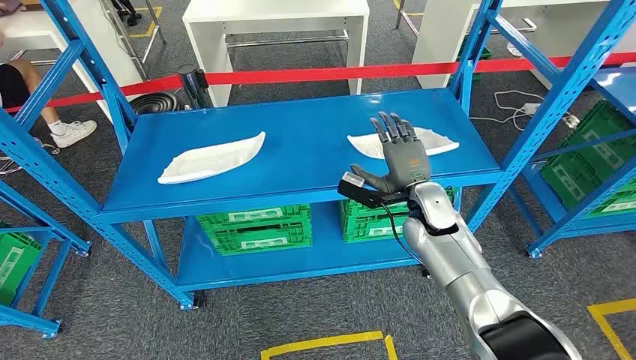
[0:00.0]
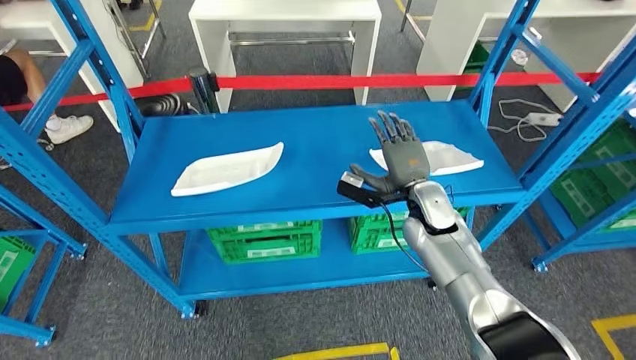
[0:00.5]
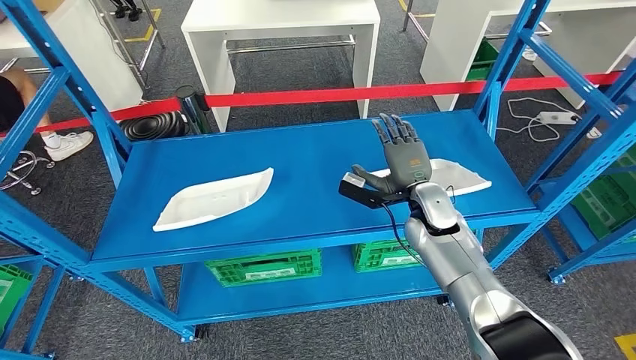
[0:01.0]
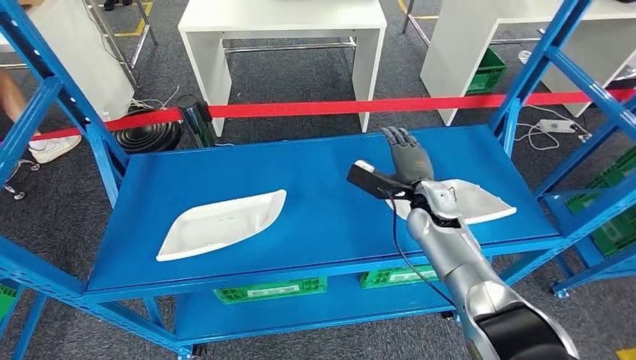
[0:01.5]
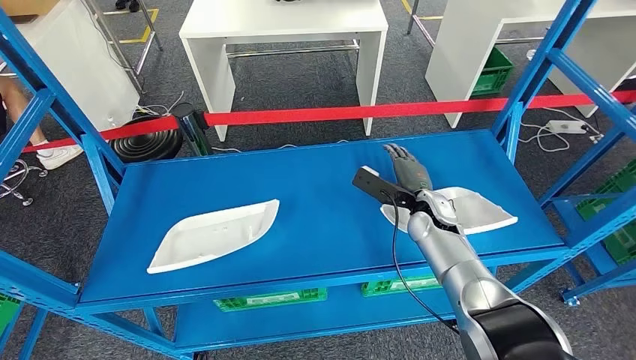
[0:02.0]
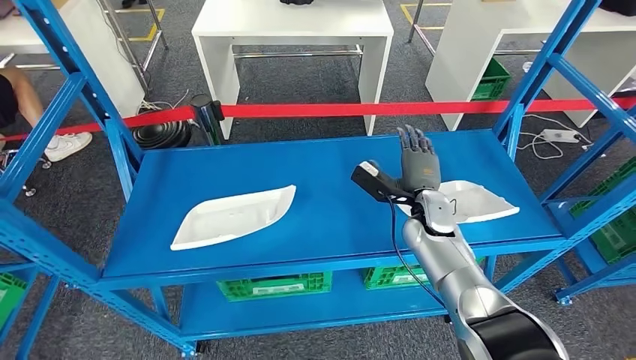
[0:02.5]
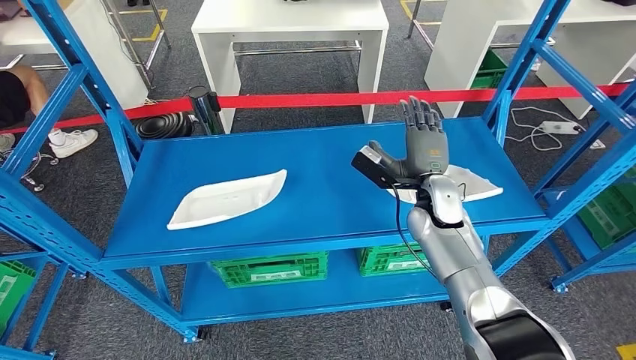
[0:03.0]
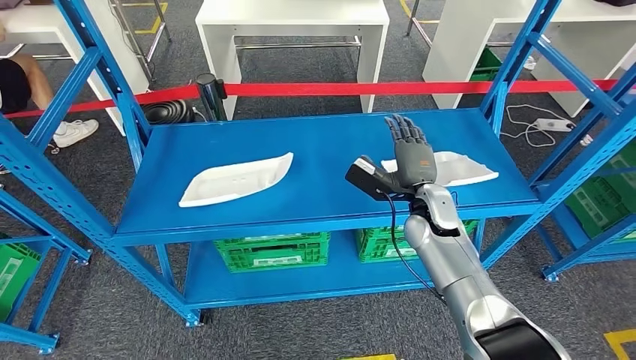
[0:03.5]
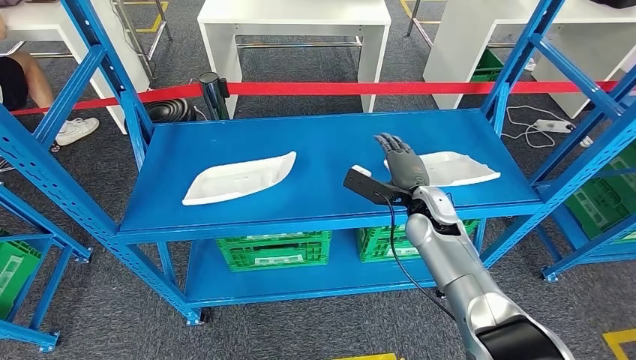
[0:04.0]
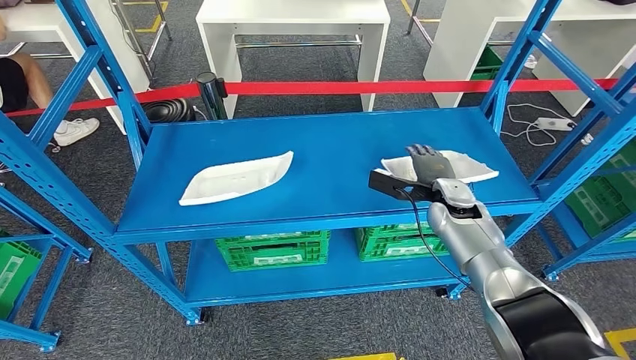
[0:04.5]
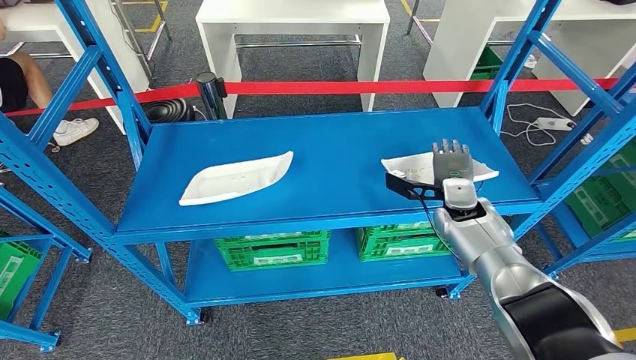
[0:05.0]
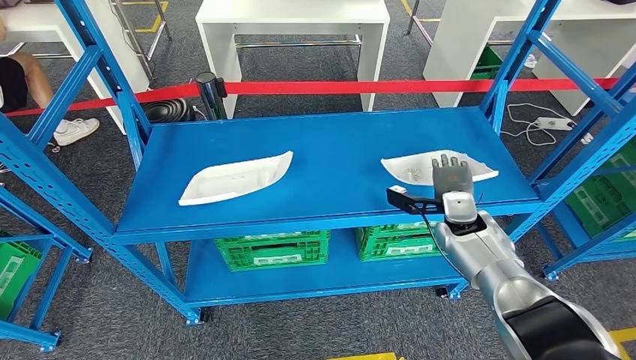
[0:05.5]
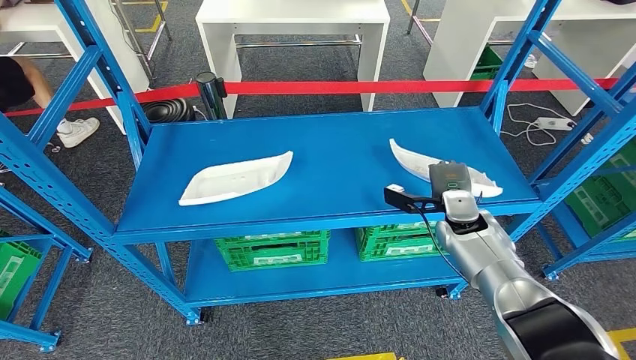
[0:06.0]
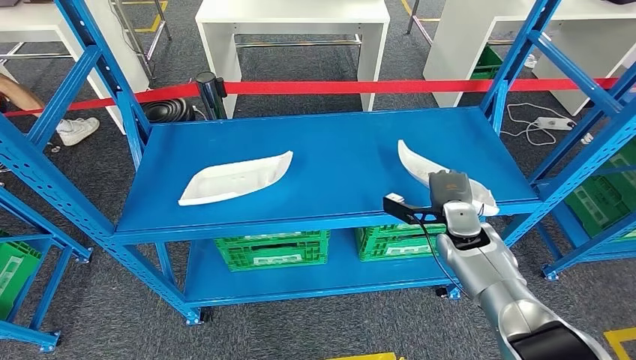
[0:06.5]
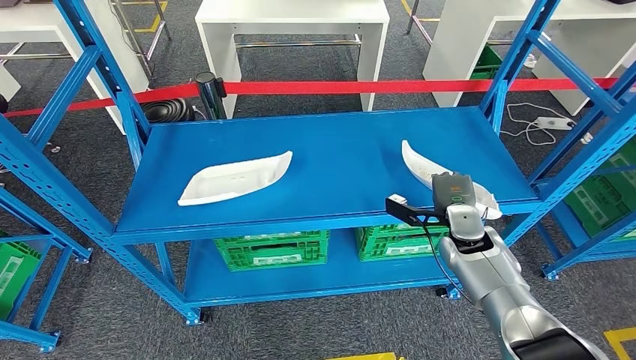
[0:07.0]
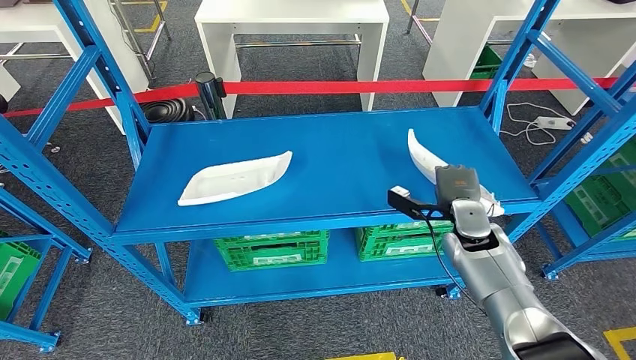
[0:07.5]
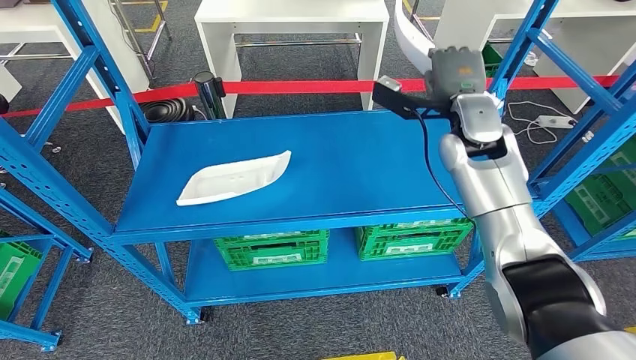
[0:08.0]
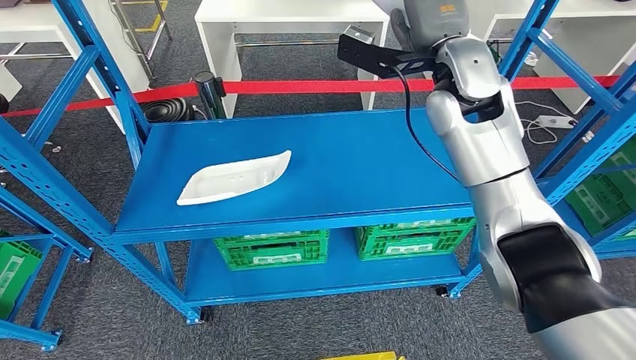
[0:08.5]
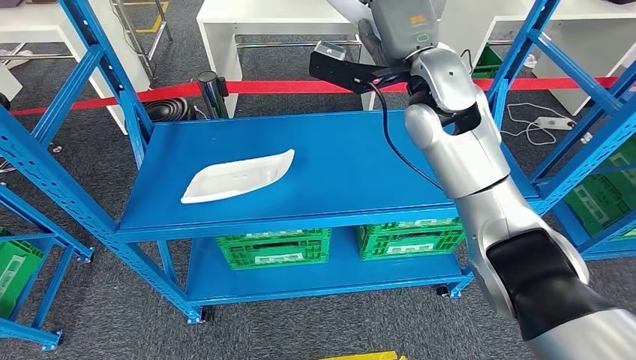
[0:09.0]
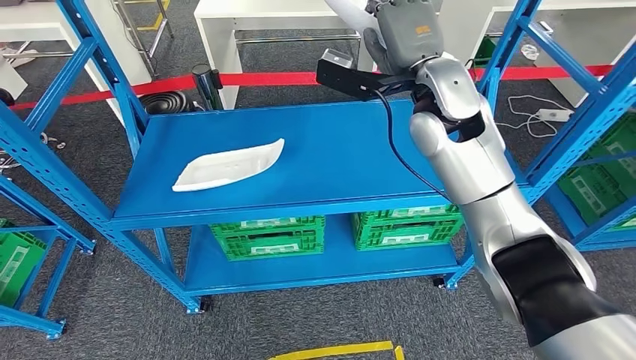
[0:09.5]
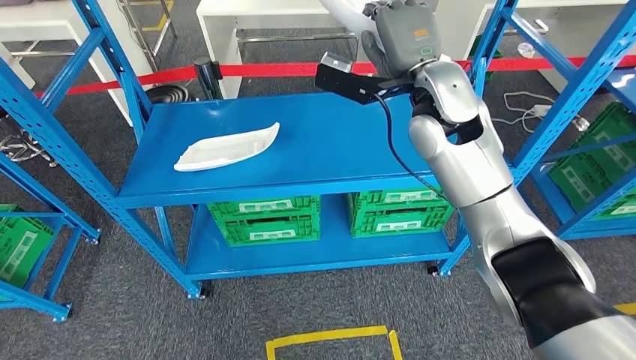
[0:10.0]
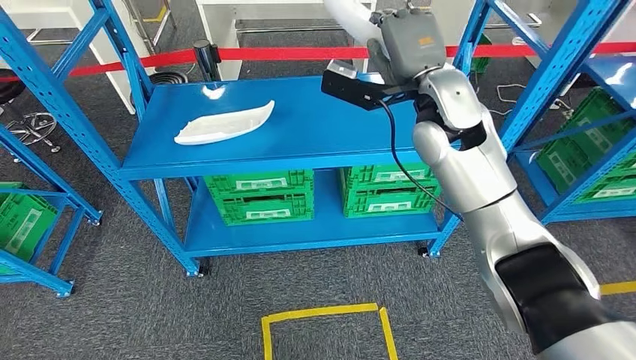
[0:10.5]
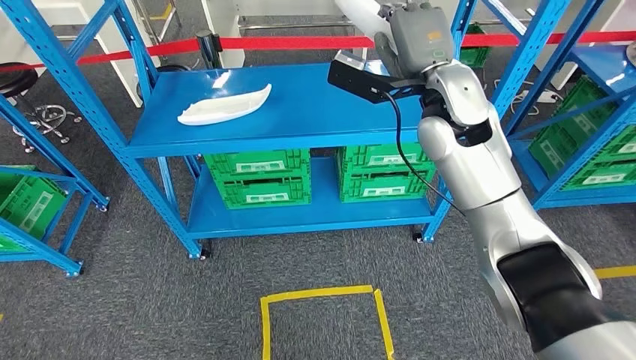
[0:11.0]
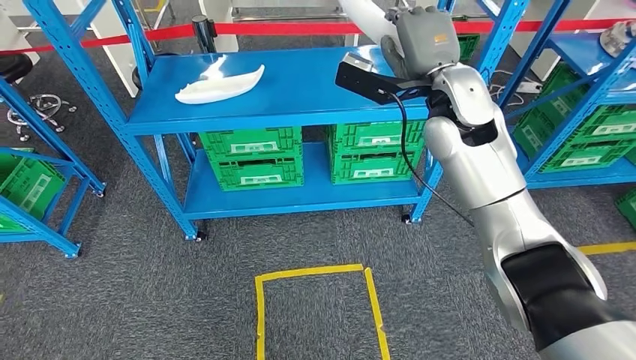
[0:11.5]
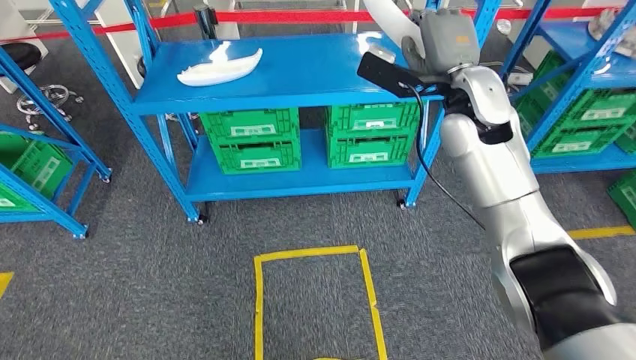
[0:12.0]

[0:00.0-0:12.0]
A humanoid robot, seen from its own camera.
Step, 0:00.0 to 0:07.5: Pick up the small component from the shelf.
0:04.0 to 0:06.0: The right hand shifts some 5 cm to the right.
0:06.0 to 0:08.0: The right hand goes roughly 20 cm upward.

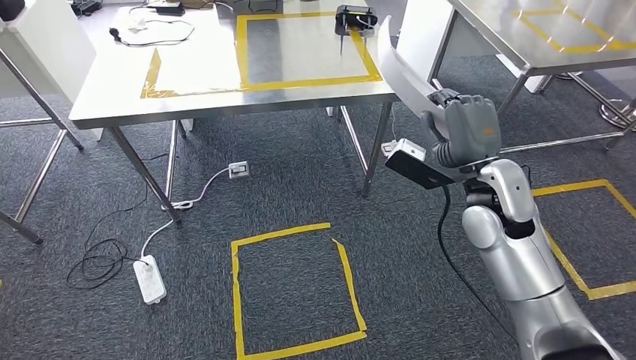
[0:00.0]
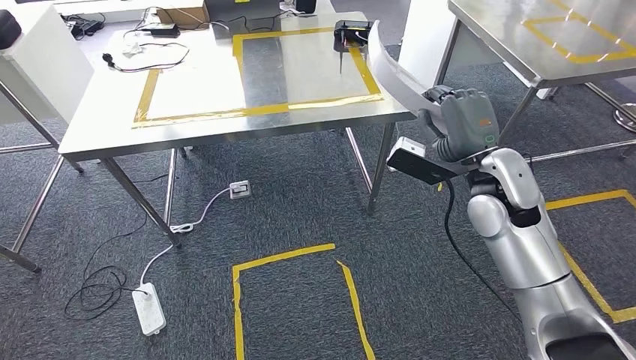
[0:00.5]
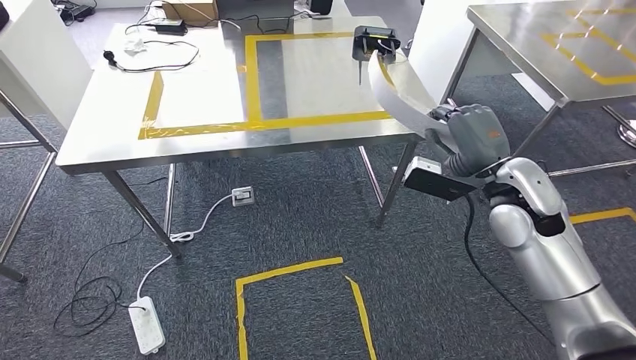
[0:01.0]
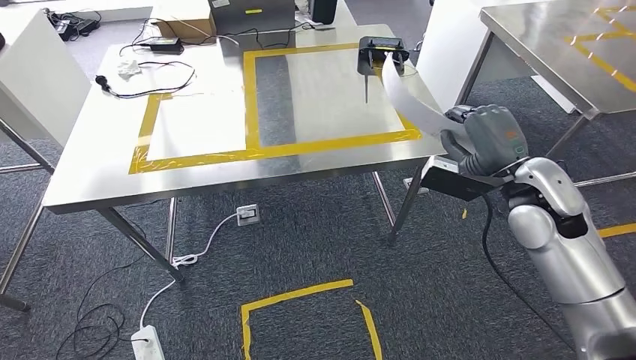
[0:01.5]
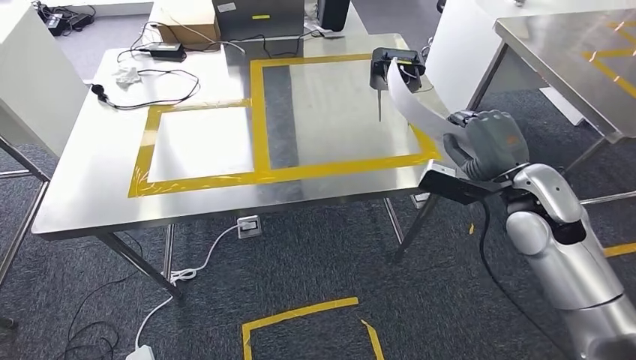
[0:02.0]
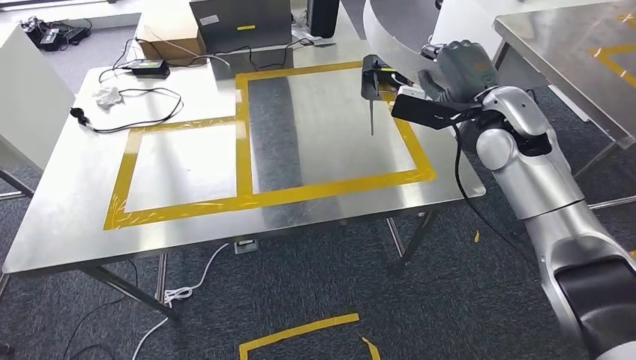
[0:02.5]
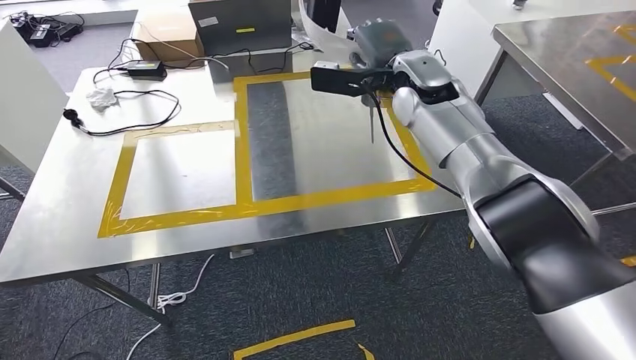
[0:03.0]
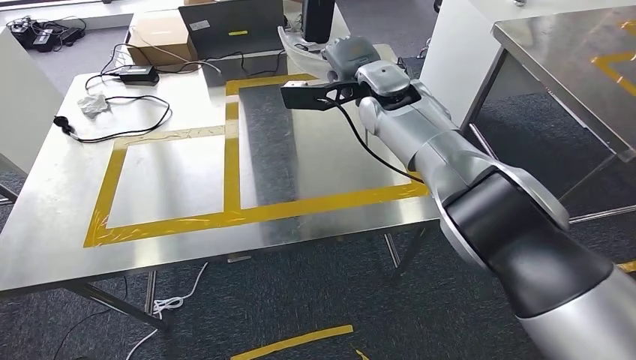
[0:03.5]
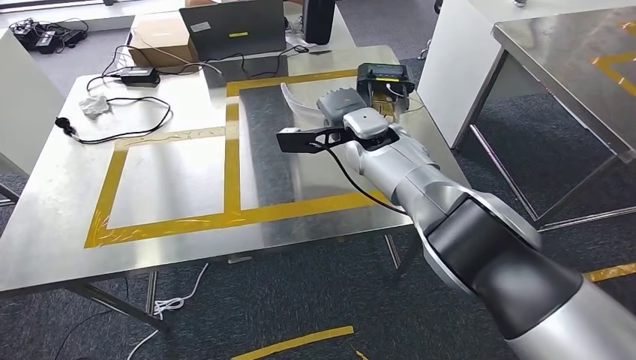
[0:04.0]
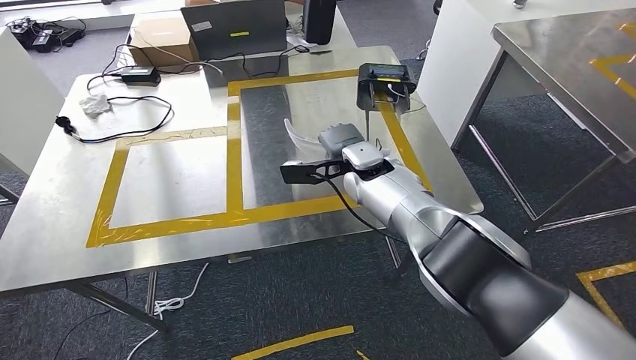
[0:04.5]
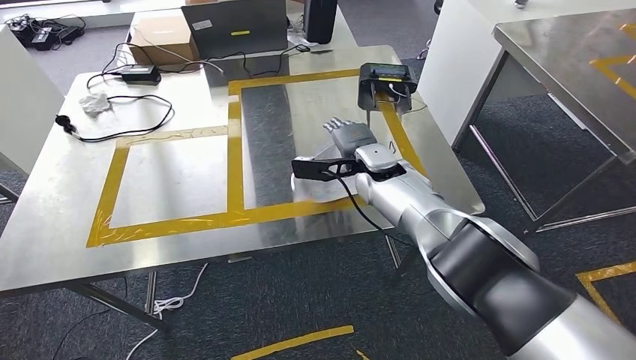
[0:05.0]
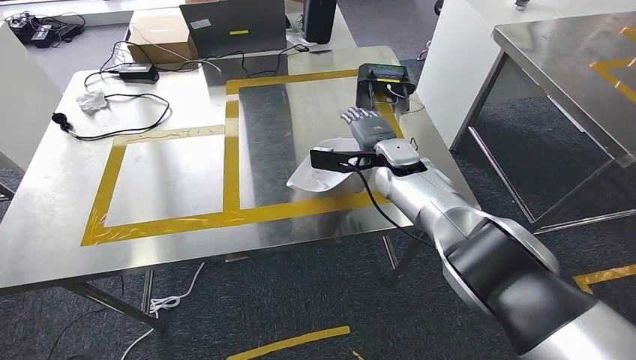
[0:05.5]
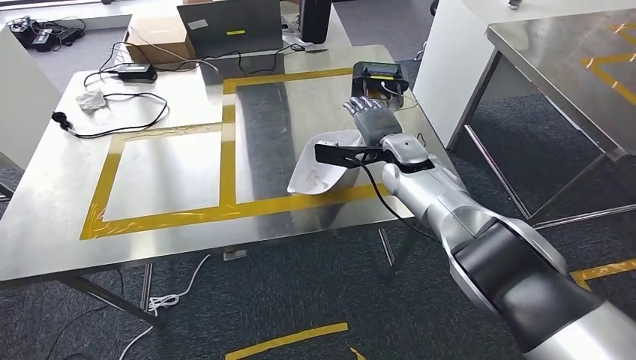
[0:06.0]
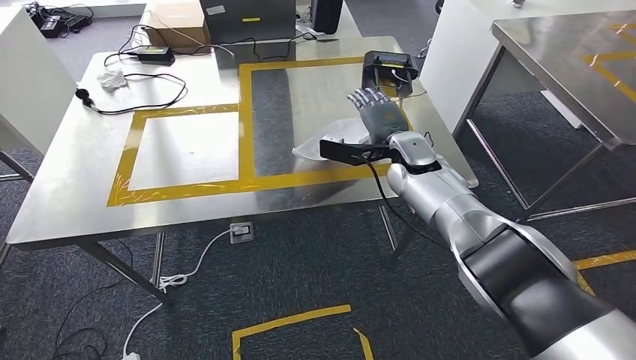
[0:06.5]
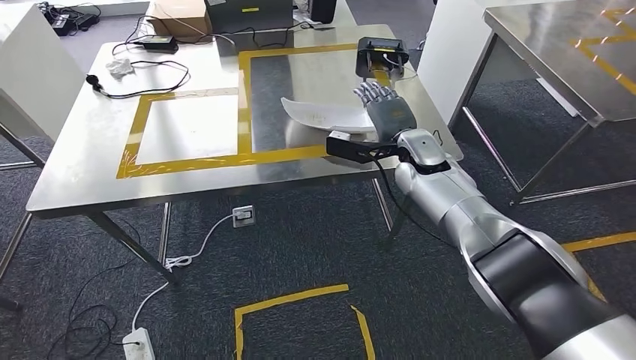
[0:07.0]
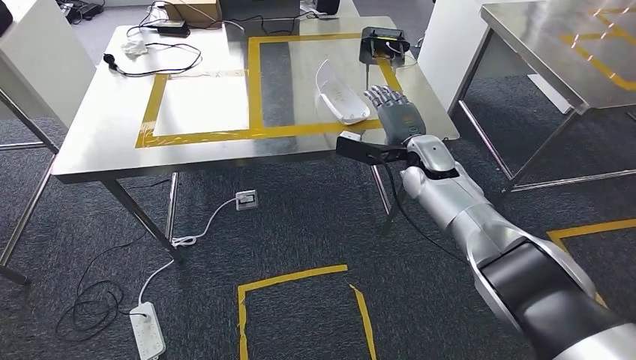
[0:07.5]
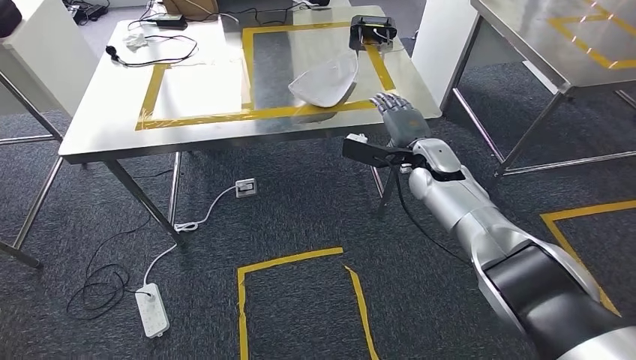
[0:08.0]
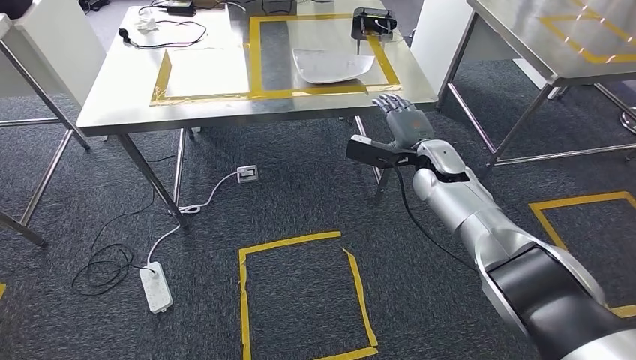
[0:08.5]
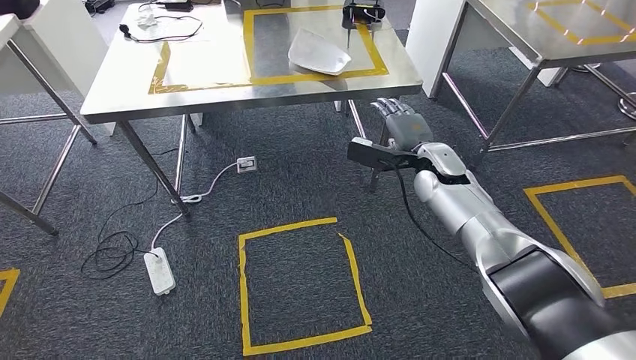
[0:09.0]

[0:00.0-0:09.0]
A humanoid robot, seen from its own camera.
Step, 0:00.0 to 0:02.5: Move the small component to the workbench.
Step, 0:03.0 to 0:06.5: Insert the small component into the corresponding slot on the workbench.
